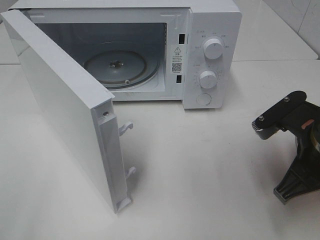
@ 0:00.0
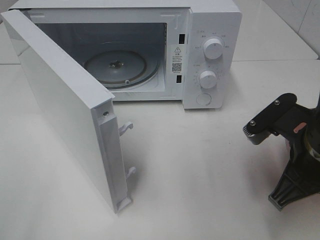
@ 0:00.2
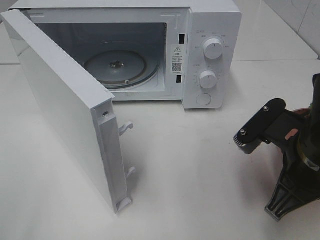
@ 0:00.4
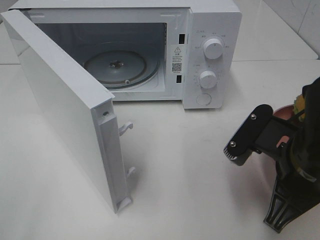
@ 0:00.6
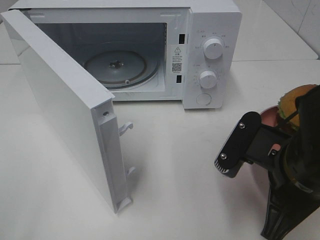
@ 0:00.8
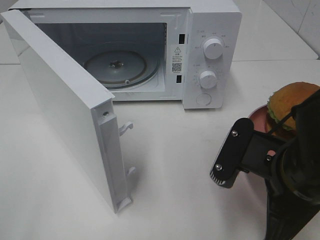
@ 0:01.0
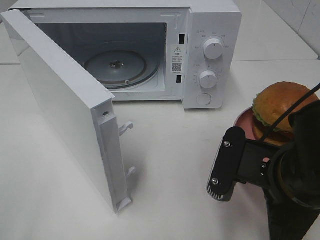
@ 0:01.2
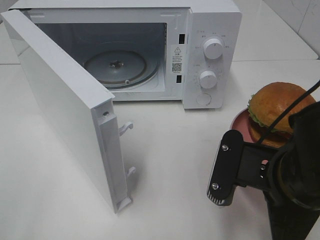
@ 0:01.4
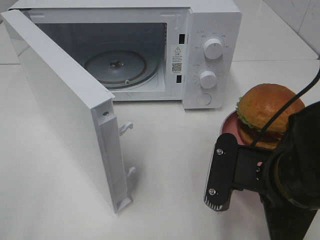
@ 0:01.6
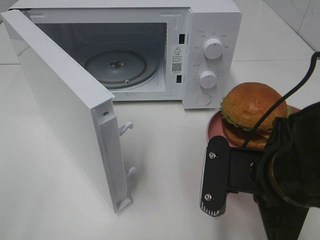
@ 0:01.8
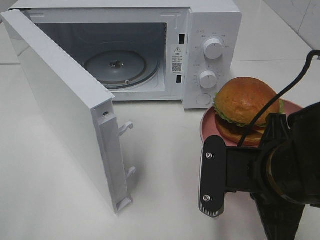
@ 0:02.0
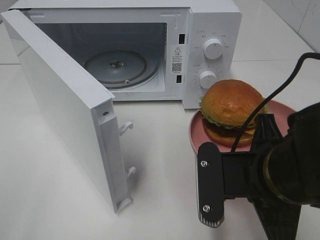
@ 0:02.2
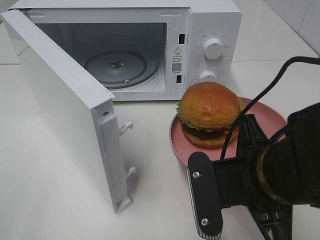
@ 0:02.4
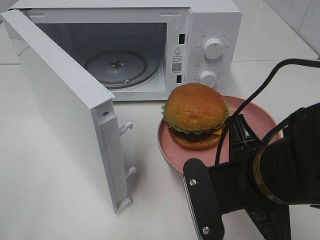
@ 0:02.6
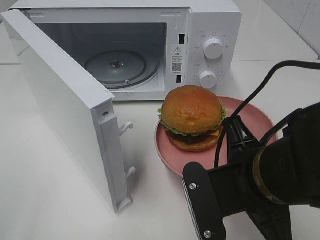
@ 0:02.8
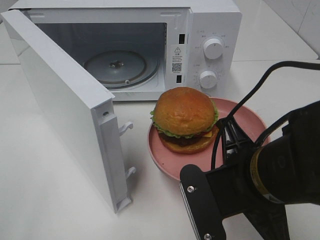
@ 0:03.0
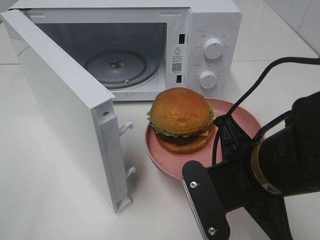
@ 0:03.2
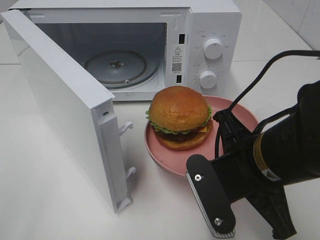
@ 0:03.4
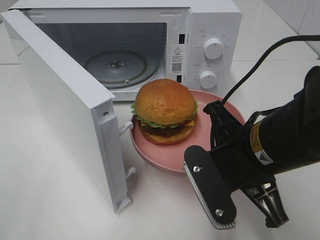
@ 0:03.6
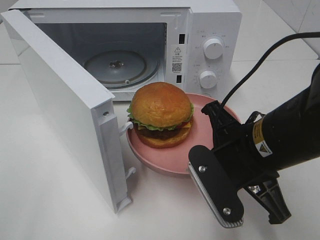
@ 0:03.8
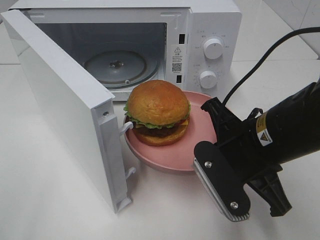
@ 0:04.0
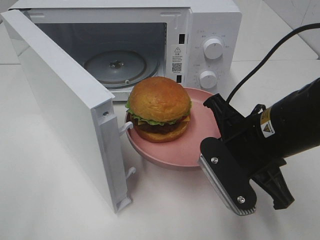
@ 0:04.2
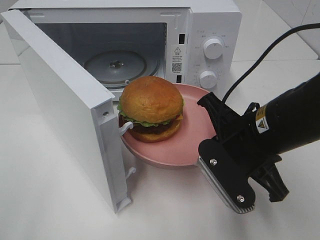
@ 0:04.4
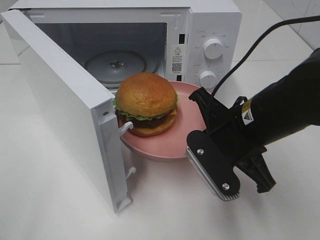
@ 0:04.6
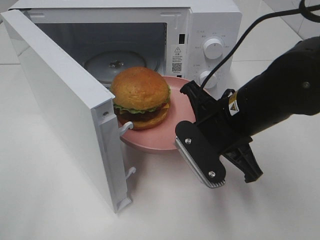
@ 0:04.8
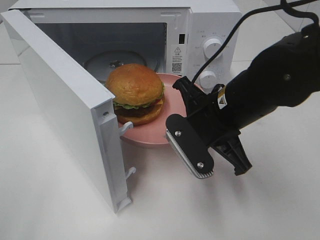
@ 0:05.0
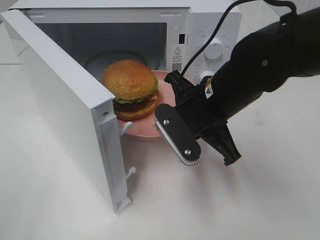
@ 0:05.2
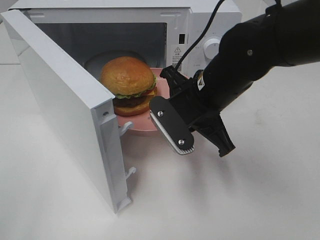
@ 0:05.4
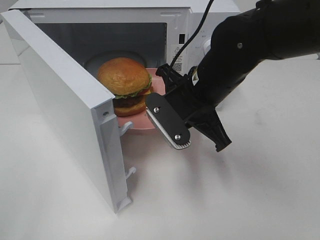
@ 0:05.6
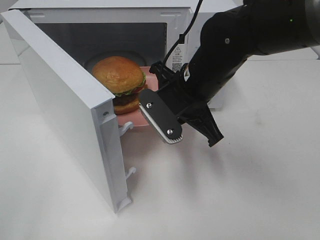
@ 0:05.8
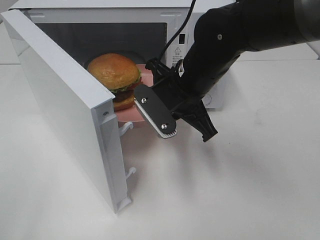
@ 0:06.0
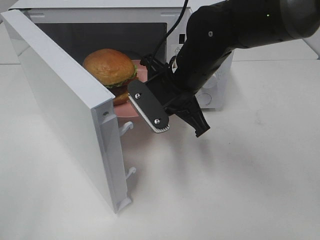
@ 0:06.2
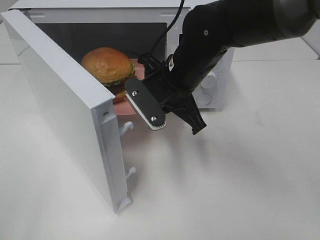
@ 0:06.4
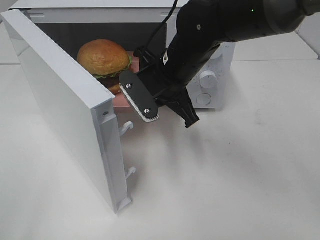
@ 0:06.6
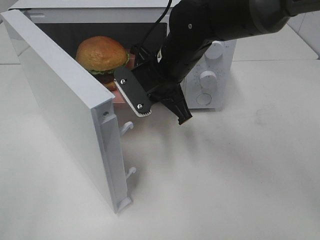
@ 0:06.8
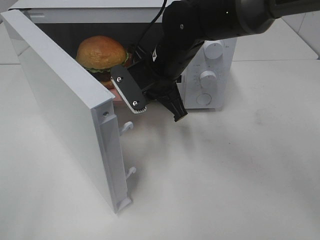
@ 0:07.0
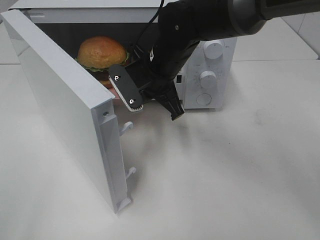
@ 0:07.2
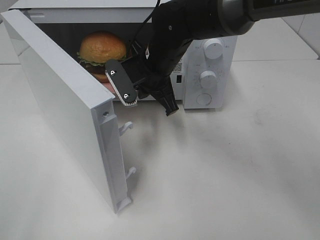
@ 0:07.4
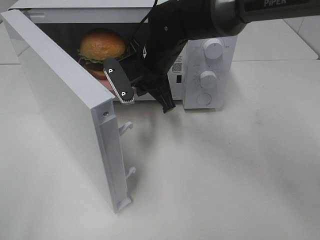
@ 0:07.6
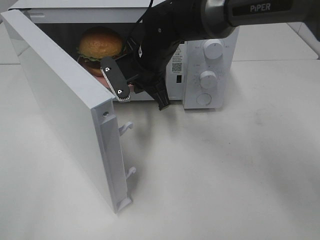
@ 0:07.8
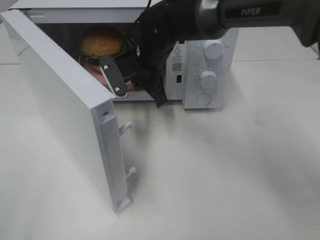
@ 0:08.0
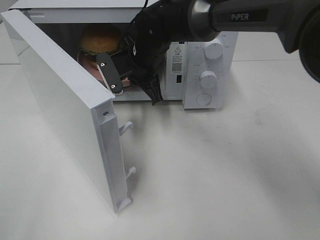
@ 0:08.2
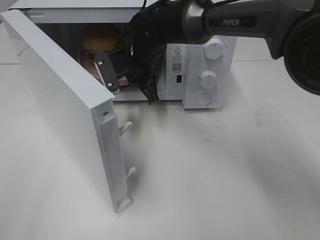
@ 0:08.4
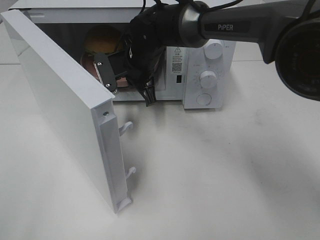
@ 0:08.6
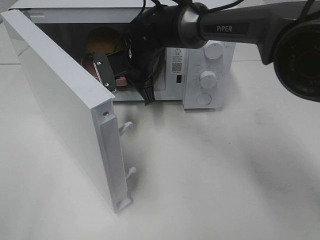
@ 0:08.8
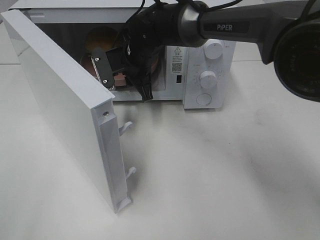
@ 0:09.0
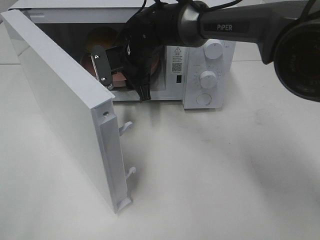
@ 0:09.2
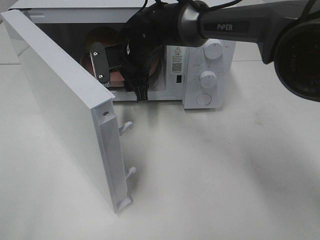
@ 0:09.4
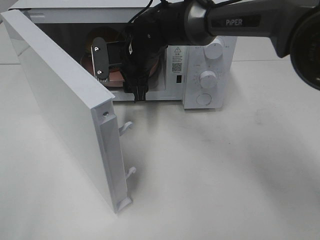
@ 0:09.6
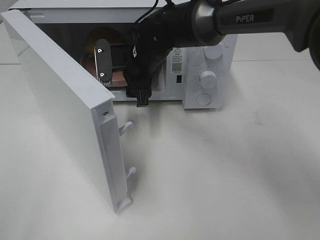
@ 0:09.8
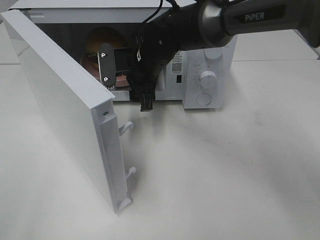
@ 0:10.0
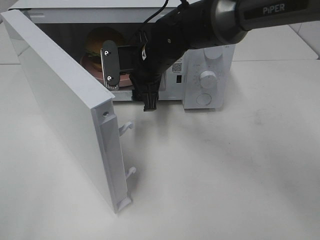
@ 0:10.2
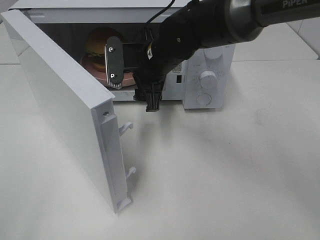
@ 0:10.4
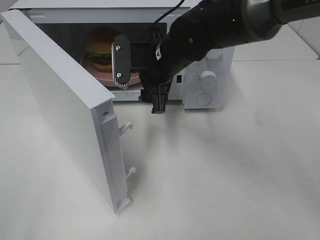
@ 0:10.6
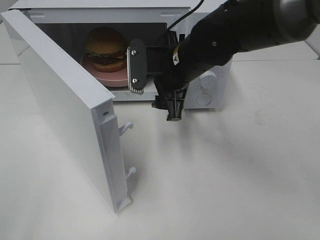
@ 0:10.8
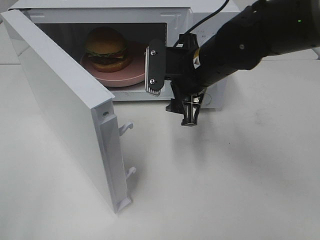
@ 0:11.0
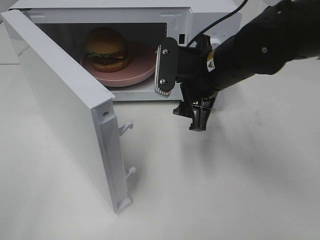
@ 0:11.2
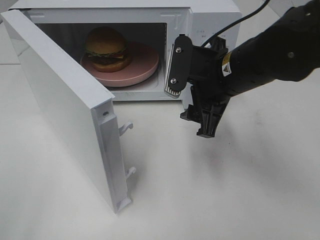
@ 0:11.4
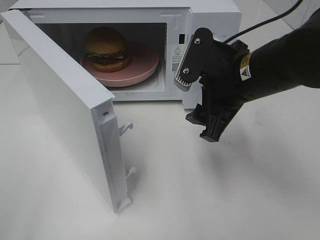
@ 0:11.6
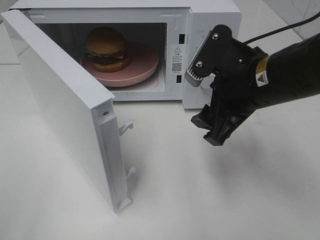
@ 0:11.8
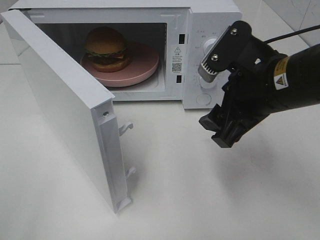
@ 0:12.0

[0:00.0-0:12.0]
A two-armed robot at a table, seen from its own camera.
Task of the whole recording: Heat the burger.
Step, 0:00.0 to 0:09.0: Right hand: place the plate in the microwave.
0:00.0 to 0:01.6: The right gripper moves to the left and backward, approximately 10 cm.
0:03.0 to 0:04.4: The right gripper travels forward by about 5 cm.
0:04.4 to 0:06.0: The right gripper is displaced forward and to the left by approximately 15 cm.
0:06.0 to 0:07.6: The right gripper moves forward and to the left, approximately 10 cm.
0:07.6 to 0:09.0: The right gripper moves about 5 cm, and opens up.
0:09.0 to 0:10.4: The right gripper heads backward, covering about 5 cm, and opens.
0:10.4 to 0:12.0: The right gripper moves backward and to the right, roughly 20 cm.

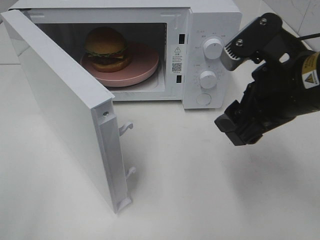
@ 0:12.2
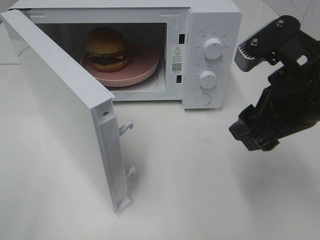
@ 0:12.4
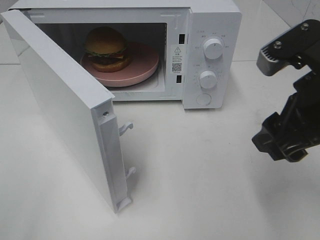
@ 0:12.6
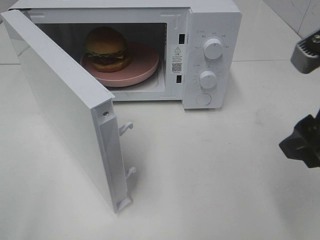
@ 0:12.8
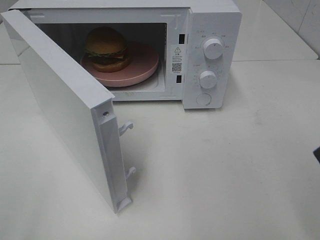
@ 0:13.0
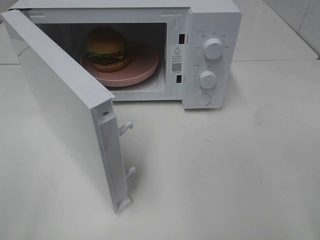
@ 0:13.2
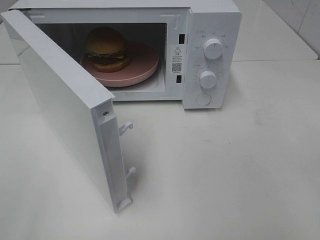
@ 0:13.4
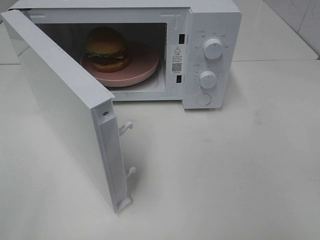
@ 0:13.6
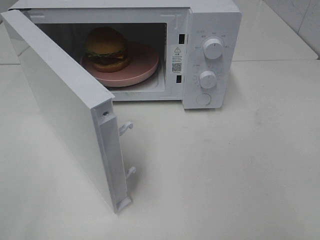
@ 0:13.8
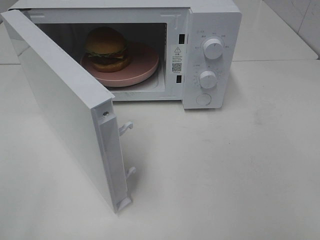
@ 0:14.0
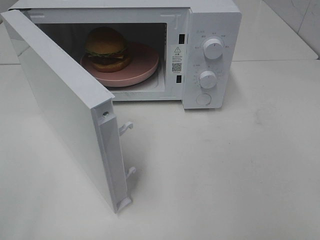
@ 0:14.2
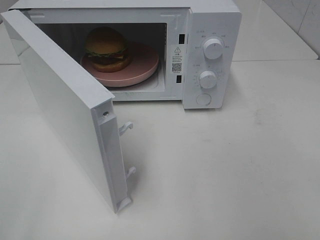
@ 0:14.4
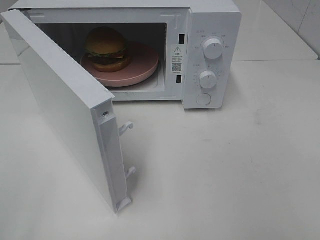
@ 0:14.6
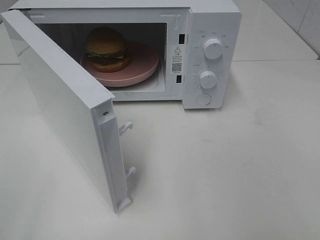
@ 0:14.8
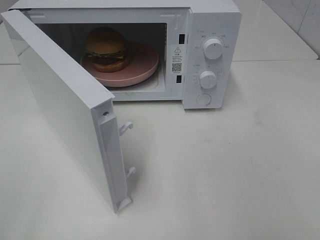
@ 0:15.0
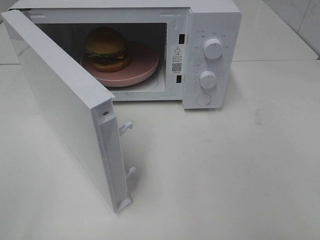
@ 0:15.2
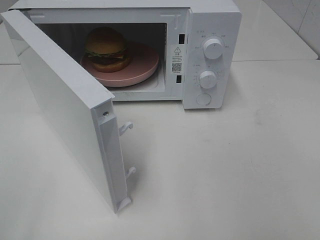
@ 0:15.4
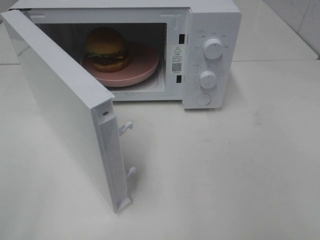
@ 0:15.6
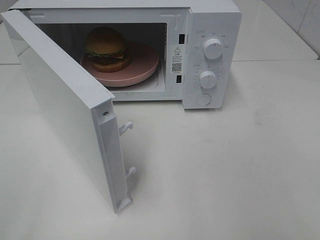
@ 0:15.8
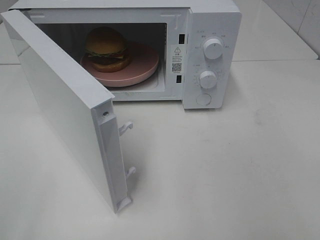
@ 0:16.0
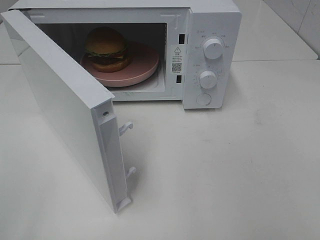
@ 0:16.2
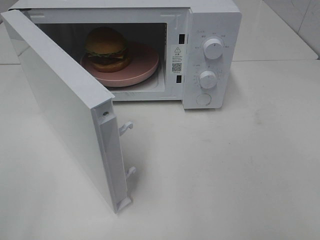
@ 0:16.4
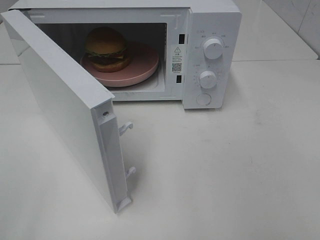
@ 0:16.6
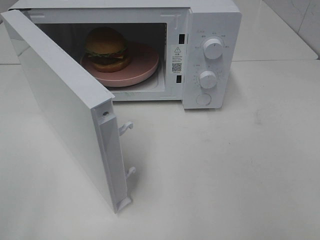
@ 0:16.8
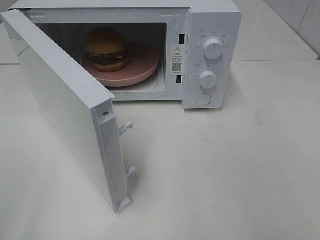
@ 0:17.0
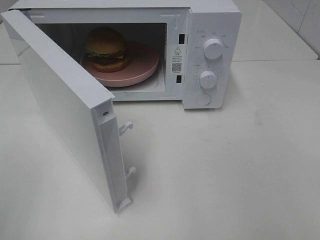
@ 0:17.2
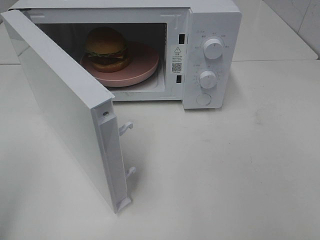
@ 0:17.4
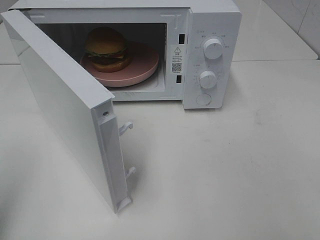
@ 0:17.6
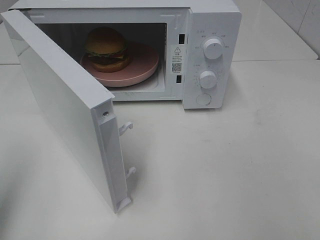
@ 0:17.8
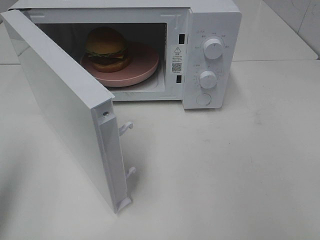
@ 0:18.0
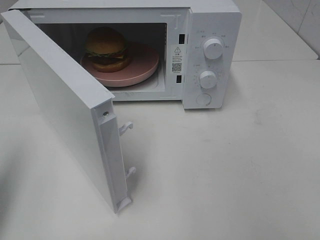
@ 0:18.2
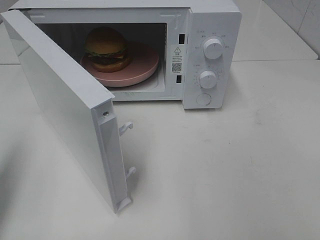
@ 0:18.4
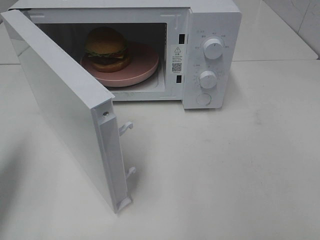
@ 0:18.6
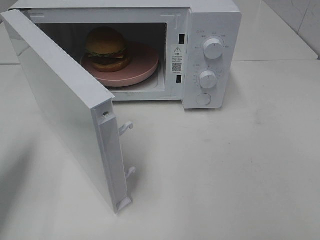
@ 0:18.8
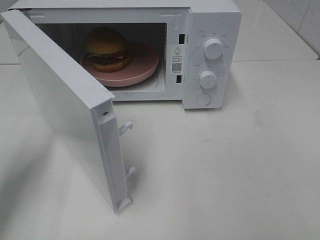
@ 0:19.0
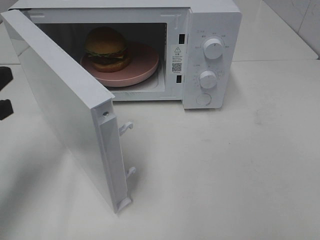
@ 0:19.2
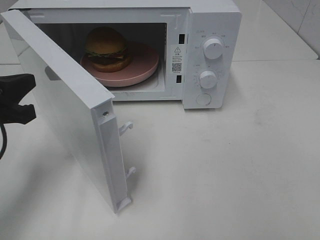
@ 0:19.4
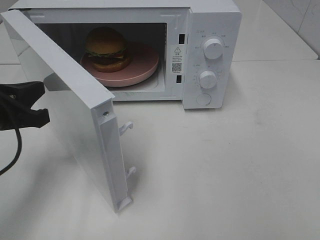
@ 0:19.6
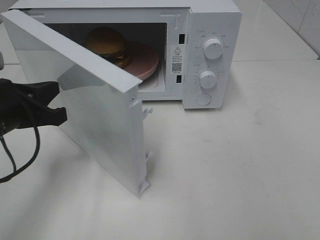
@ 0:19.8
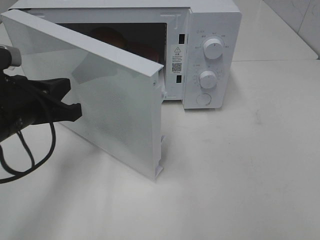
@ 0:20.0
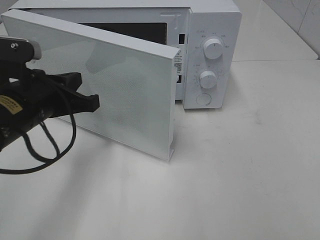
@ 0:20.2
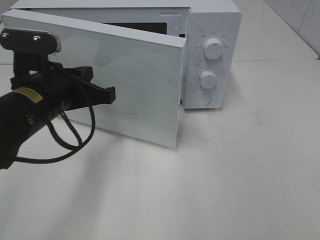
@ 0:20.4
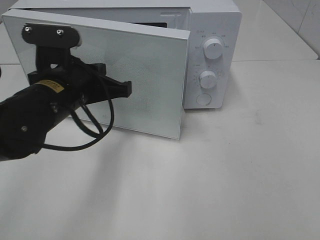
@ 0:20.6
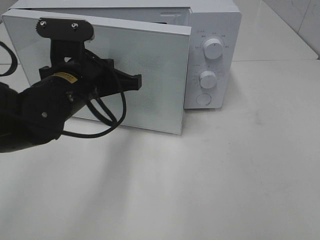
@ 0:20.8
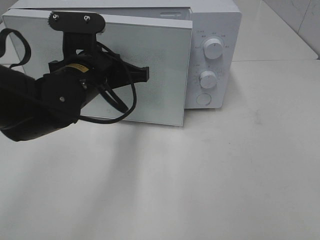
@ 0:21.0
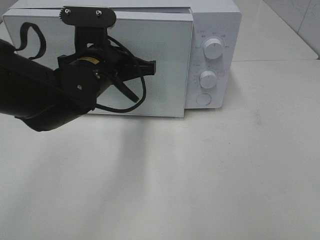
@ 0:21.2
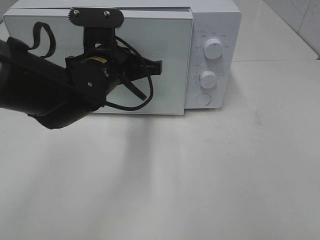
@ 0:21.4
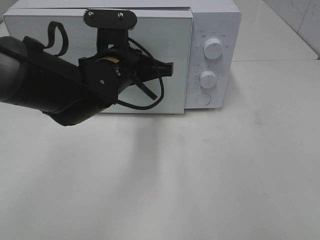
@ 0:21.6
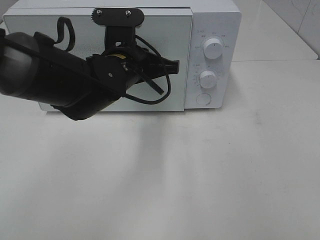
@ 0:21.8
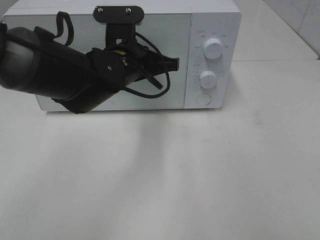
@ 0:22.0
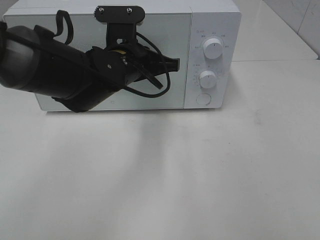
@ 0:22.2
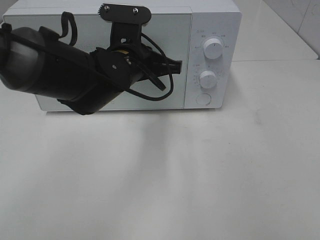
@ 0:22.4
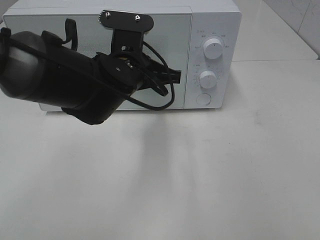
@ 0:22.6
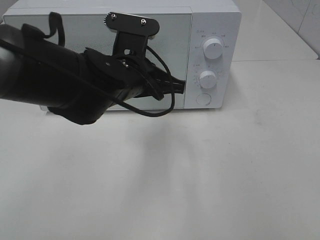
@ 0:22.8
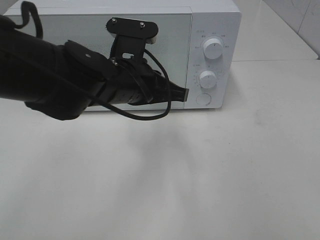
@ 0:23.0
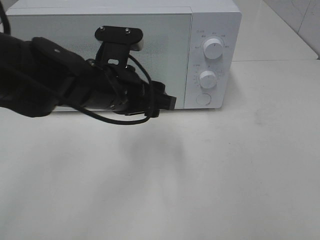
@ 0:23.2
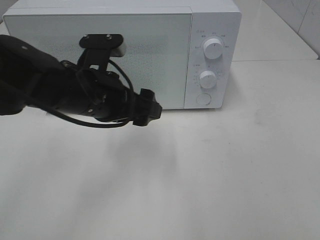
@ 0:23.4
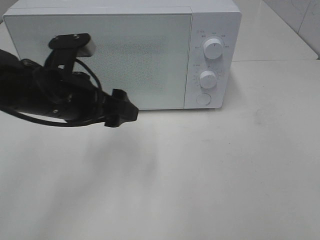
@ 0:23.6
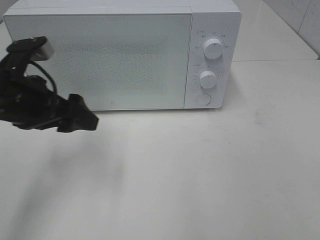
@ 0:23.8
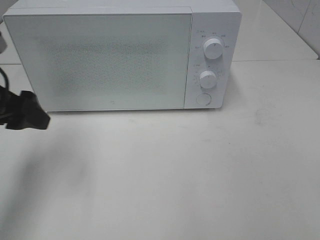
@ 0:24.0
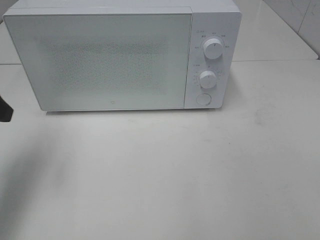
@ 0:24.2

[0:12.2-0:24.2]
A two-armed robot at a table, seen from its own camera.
Task of the whole recording: Heat the burger.
Step, 0:12.2 to 0:22.6: Left hand: close the microwave door.
0:12.2 to 0:13.8: The right gripper travels backward and to the right by roughly 20 cm.
0:15.2 to 0:16.6: Both grippers stay about where they are.
0:16.6 to 0:18.2: The left gripper travels forward by approximately 15 cm, and closes up.
0:18.2 to 0:19.8: The left gripper goes approximately 15 cm to the right, forward and downward.
0:19.8 to 0:21.2: The left gripper shifts some 15 cm to the right and forward.
0:21.2 to 0:22.6: The grippers stay close to where they were, moving slightly.
0:22.6 to 0:24.2: The left gripper shifts some 25 cm to the left, and opens.
